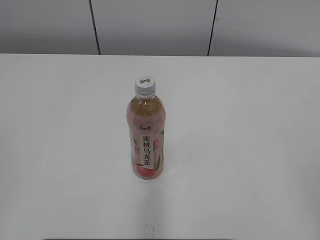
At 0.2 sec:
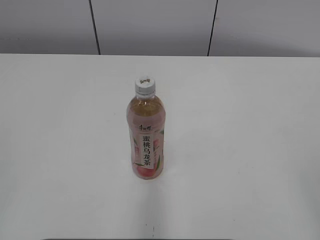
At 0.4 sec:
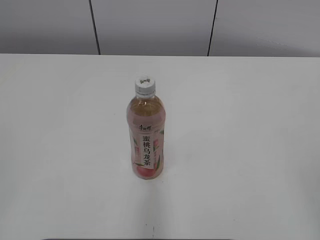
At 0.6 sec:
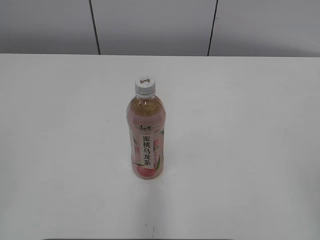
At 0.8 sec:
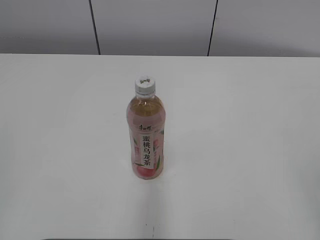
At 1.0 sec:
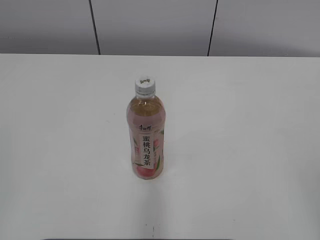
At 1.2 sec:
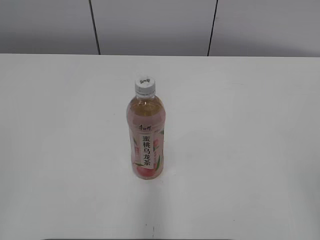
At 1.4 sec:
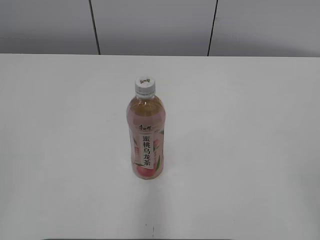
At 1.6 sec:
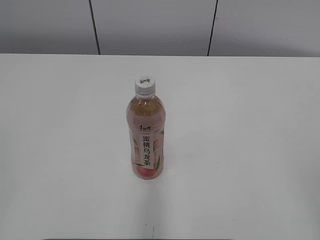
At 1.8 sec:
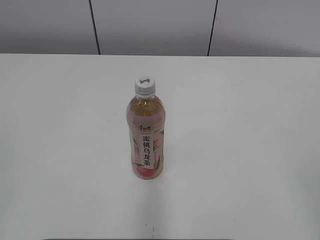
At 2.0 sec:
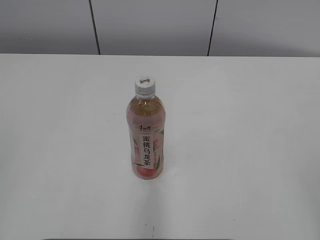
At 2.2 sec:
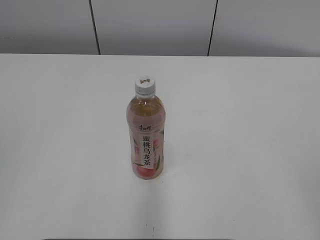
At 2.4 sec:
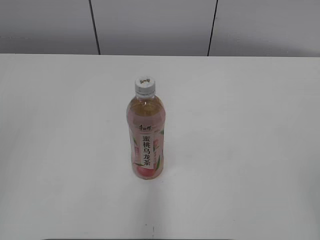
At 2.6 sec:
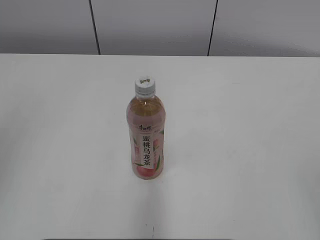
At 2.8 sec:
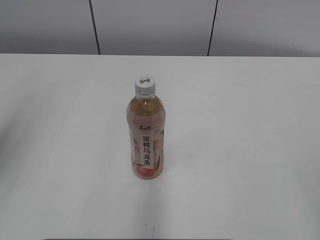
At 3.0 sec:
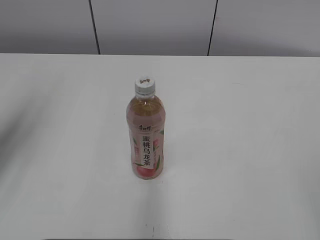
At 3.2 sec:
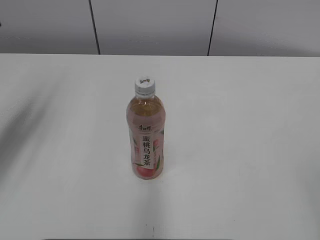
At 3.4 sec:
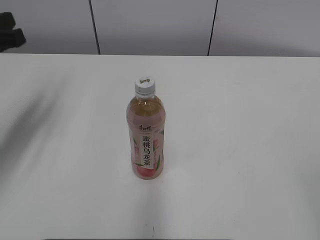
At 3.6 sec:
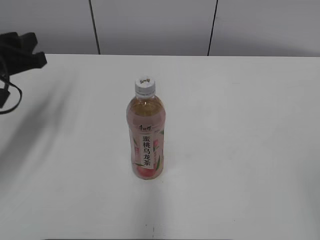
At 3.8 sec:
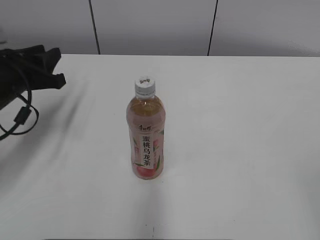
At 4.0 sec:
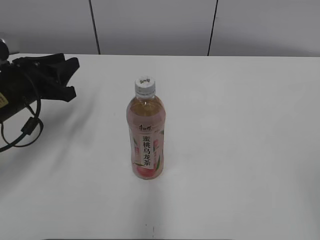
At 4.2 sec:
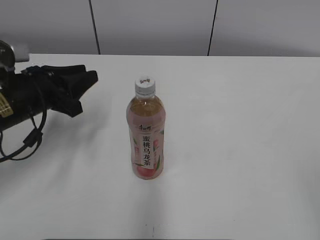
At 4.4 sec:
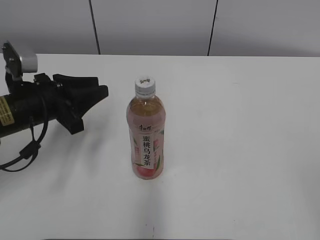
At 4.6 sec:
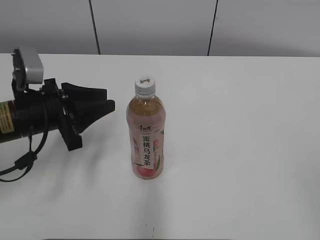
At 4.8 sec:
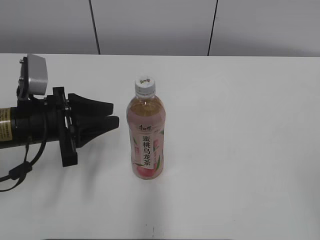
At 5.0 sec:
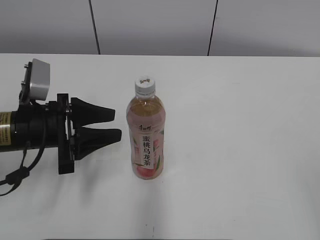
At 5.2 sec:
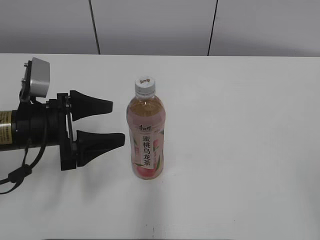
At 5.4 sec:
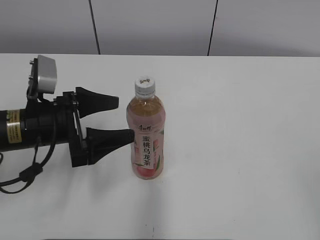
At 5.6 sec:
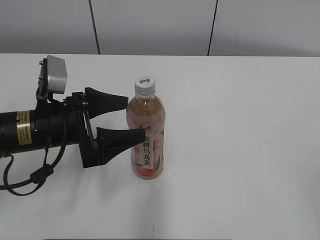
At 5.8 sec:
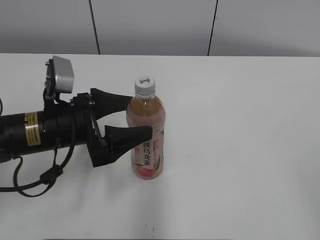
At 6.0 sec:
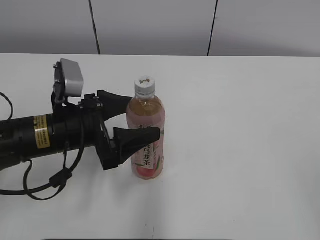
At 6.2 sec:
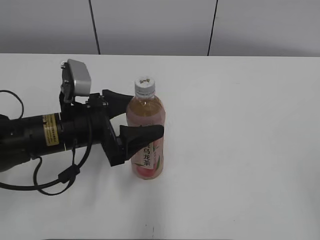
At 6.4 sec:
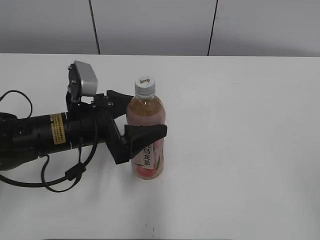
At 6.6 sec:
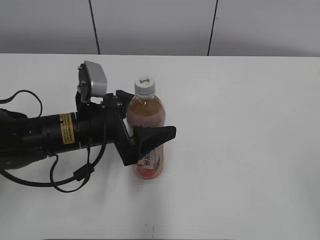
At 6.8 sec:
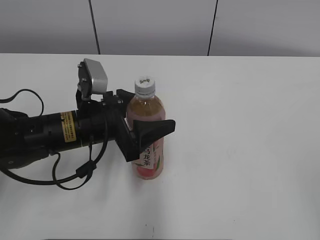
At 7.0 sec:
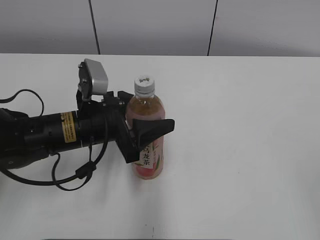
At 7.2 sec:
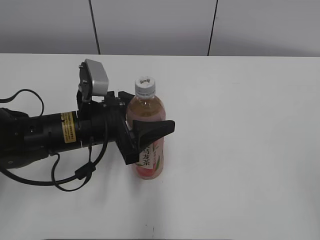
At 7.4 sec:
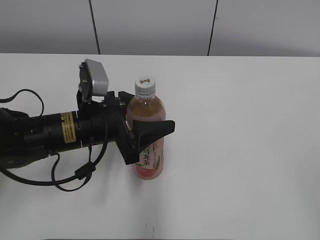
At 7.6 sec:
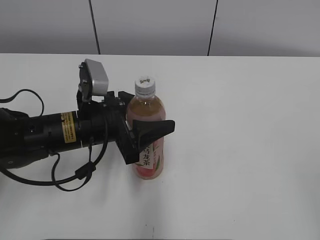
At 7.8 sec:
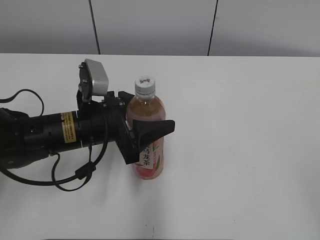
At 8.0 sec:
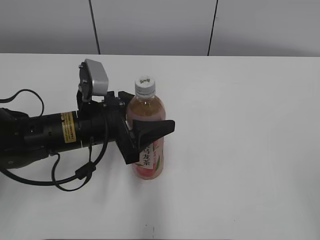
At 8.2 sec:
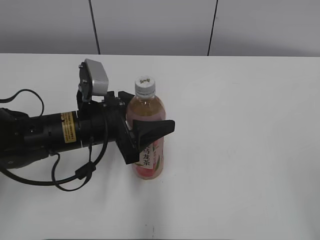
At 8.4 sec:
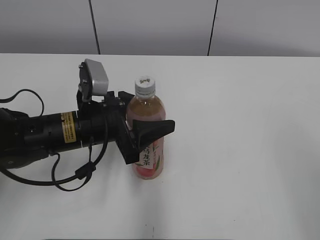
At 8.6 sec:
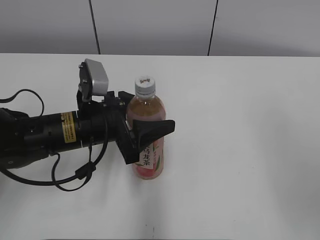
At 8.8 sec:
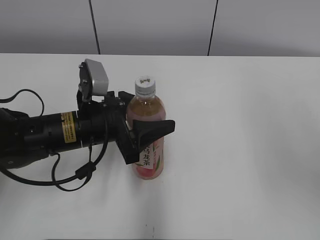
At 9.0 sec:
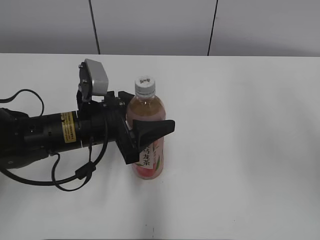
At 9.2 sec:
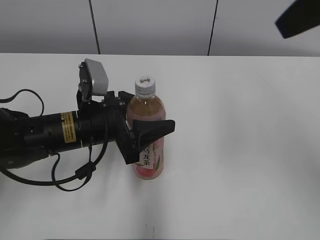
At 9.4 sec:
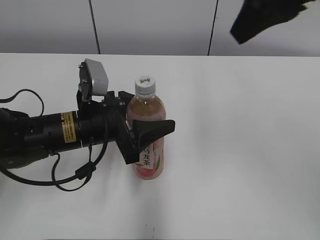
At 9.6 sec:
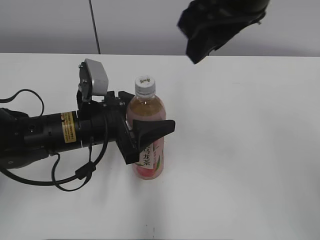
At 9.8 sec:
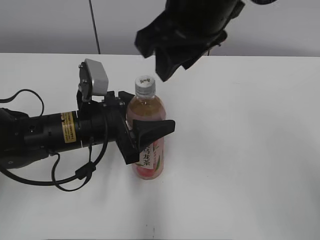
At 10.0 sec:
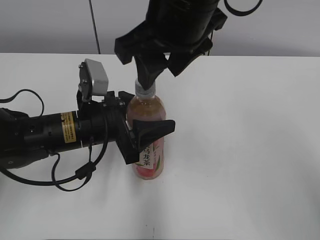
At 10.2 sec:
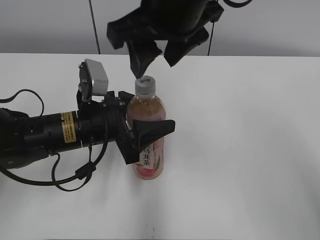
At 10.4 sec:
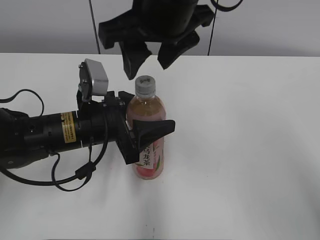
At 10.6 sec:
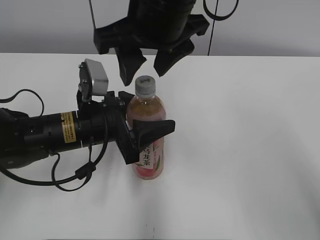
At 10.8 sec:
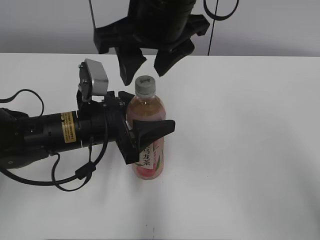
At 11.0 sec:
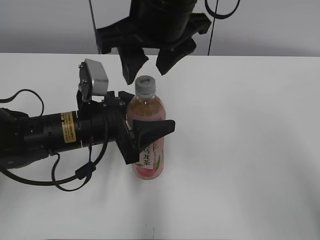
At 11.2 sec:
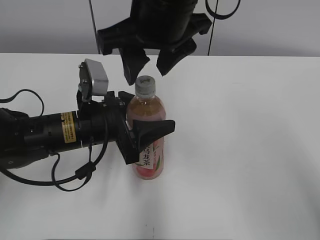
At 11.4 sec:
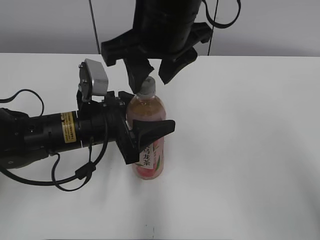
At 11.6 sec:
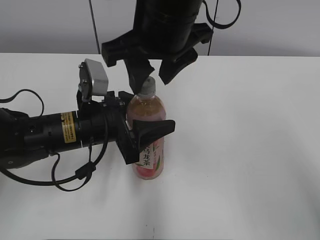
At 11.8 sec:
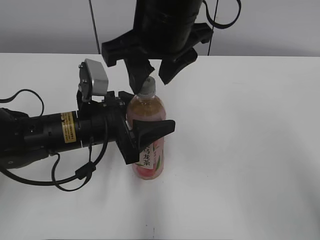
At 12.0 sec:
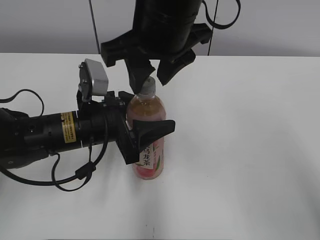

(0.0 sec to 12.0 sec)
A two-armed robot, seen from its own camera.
Step, 0.0 sec - 7.2 sec: Grab the Peach Oolong Tea with the left hand.
1.6 sec - 3.0 sec: The left gripper is displaced forward by about 20 cm.
3.0 sec - 4.4 sec: The left gripper shifts about 20 cm downward, forward and to the right.
4.4 sec - 6.0 sec: The left gripper goes approximately 5 cm to the right, and opens up.
6.0 sec - 7.6 sec: The left gripper closes its fingers.
7.6 sec - 9.0 sec: The right gripper moves forward and upward, some 20 cm, and closes up.
9.0 sec - 10.4 sec: The right gripper moves to the left and forward, some 25 cm, and opens its fingers.
10.4 sec - 12.0 sec: There are only small adjustments of the grippers.

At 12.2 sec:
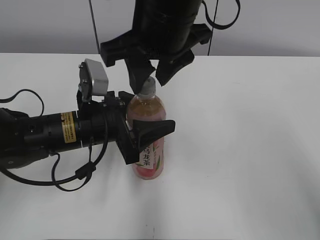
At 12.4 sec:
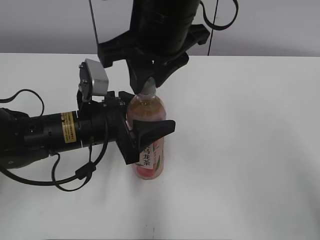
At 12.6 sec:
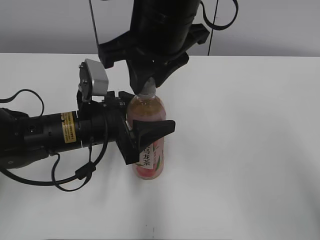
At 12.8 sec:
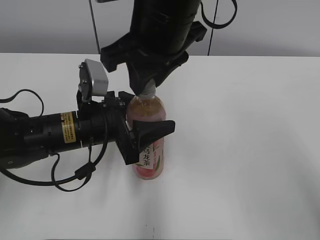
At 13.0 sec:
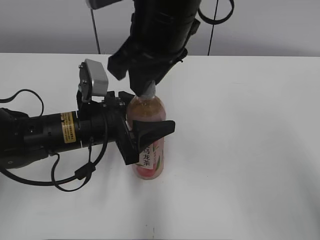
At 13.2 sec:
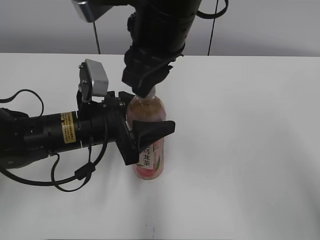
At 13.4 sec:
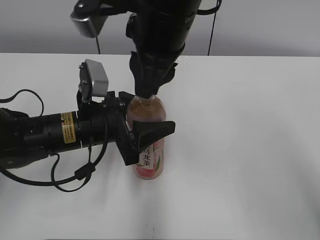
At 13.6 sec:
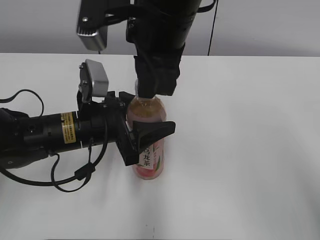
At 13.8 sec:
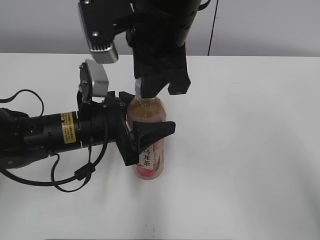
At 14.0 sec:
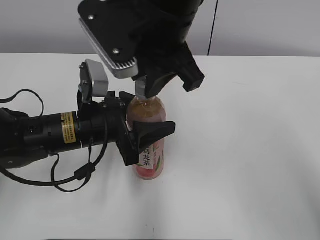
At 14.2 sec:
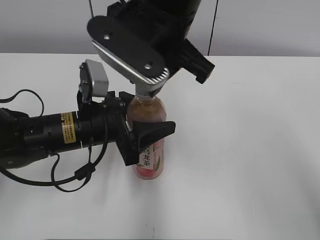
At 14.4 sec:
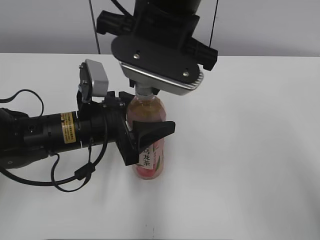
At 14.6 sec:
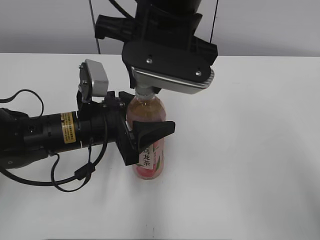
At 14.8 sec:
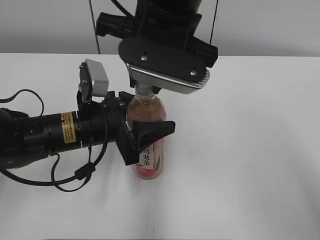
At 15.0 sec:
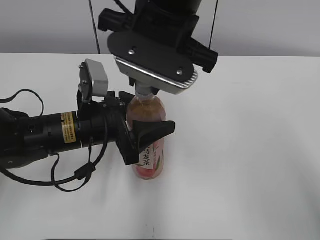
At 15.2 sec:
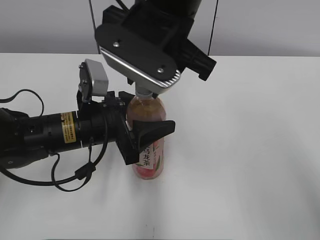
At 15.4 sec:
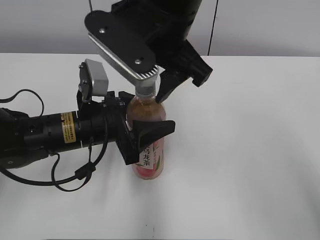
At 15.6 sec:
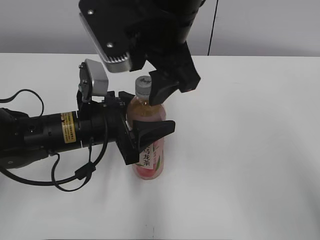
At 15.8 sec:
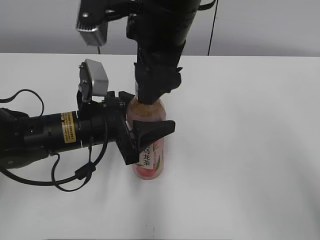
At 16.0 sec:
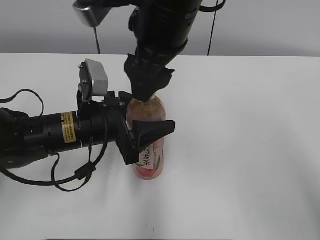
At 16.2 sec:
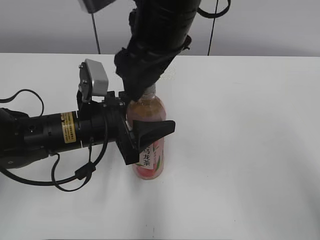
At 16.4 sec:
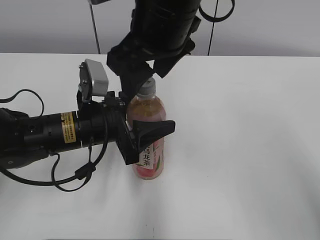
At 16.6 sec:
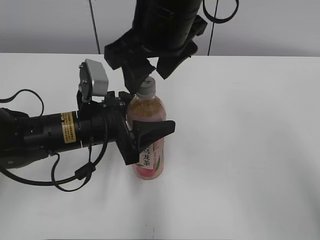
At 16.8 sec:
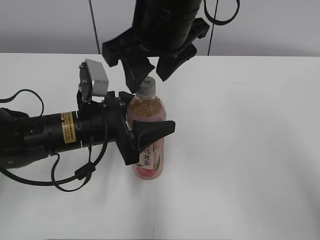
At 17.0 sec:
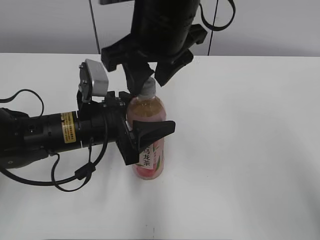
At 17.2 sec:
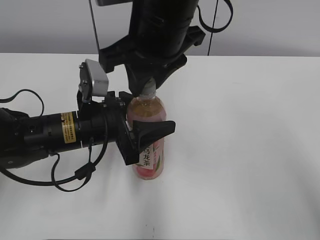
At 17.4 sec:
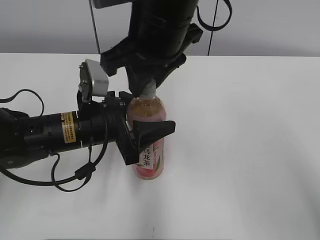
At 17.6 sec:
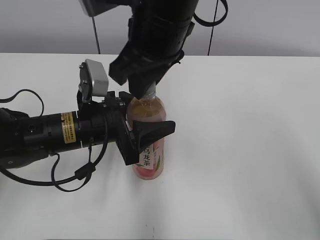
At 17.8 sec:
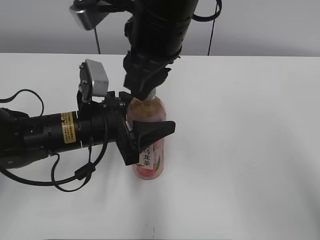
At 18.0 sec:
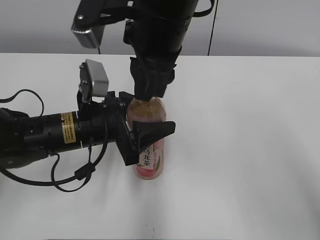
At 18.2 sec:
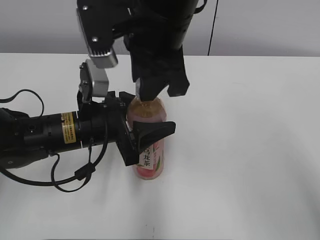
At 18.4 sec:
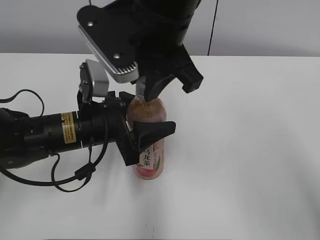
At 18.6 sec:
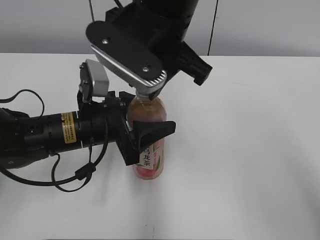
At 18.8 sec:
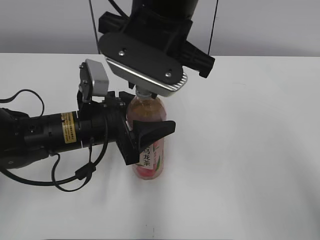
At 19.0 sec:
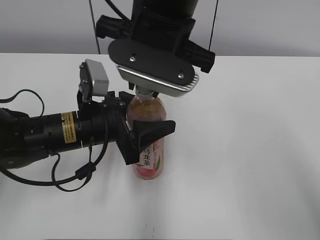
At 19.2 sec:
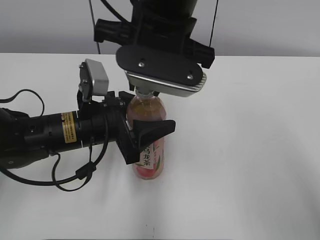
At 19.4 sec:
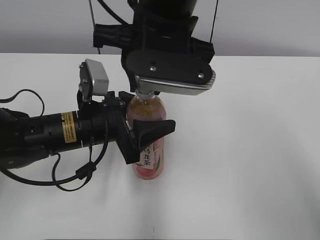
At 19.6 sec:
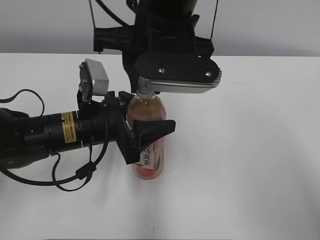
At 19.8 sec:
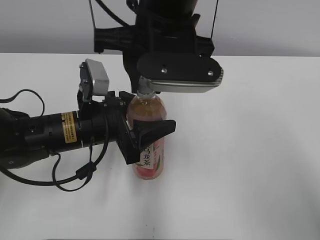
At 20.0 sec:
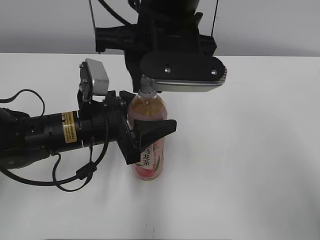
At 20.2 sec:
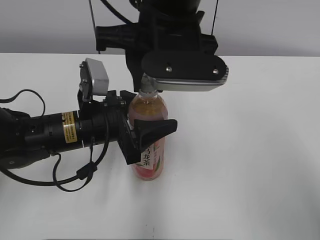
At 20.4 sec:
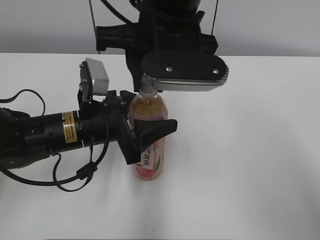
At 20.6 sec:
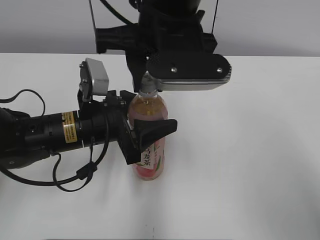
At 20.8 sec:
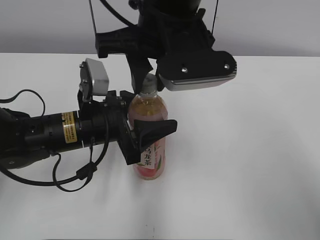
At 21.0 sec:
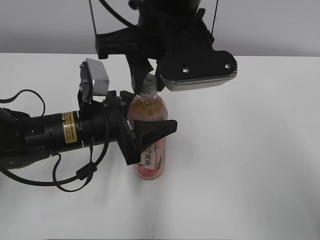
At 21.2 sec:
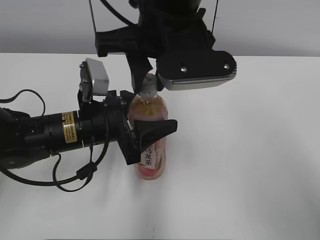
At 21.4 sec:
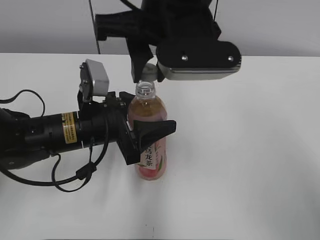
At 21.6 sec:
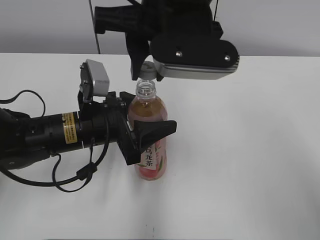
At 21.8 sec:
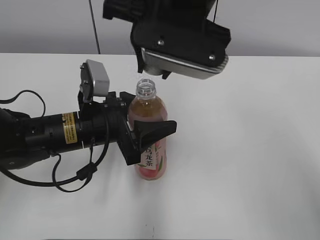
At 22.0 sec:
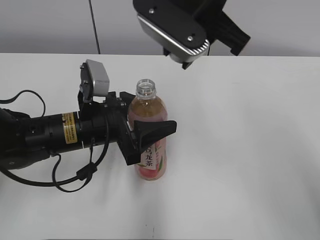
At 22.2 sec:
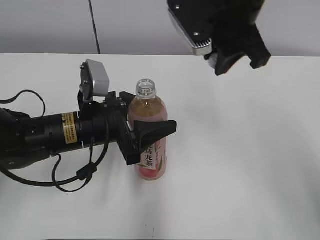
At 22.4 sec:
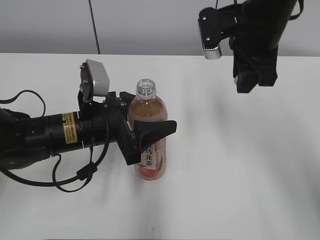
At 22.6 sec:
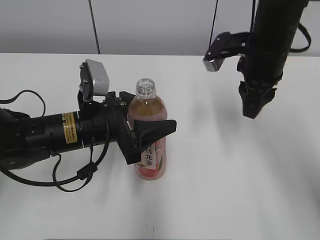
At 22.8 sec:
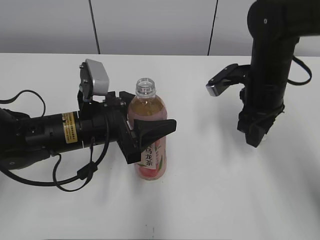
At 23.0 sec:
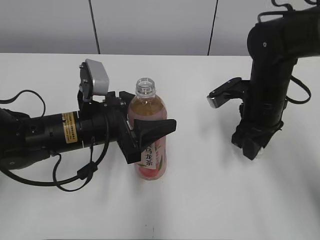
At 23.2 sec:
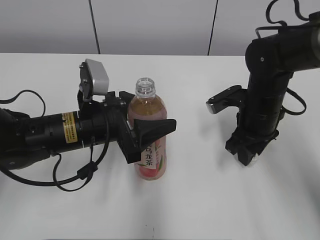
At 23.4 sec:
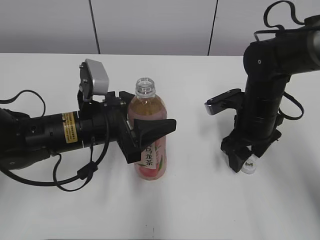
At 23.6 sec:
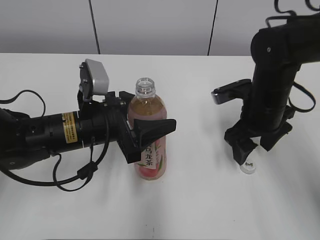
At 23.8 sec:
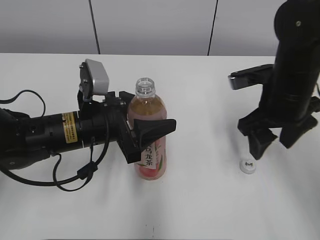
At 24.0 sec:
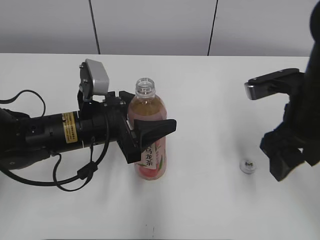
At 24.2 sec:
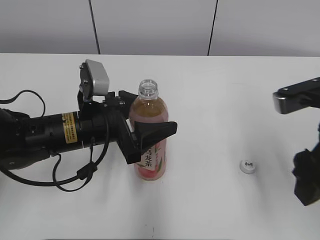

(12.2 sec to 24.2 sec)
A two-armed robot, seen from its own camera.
Step, 21.4 sec - 23.2 sec: Place the bottle cap on the right.
12.2 sec - 13.8 sec: The right gripper closes up.
15.2 sec - 16.6 sec: The right gripper opens its fingers.
16.6 sec - 18.2 sec: The right gripper closes.
19.8 sec - 21.2 sec: The grippers move only a little.
21.2 sec - 22.6 sec: The right gripper heads to the right, forward and downward, covering some 20 cm.
22.6 sec - 24.2 sec: The right gripper heads backward, covering approximately 15 cm, and opens up.
